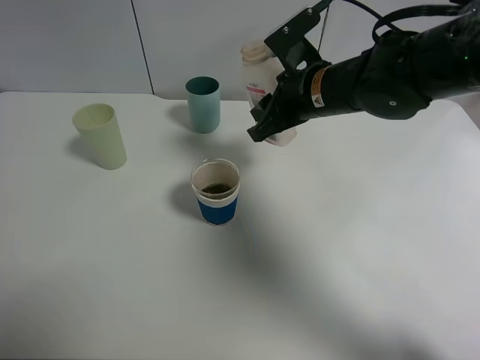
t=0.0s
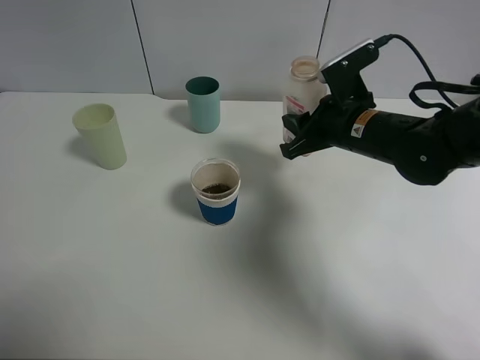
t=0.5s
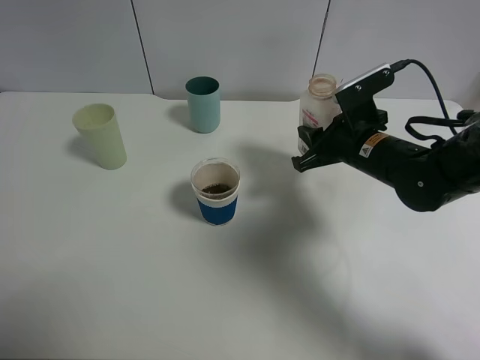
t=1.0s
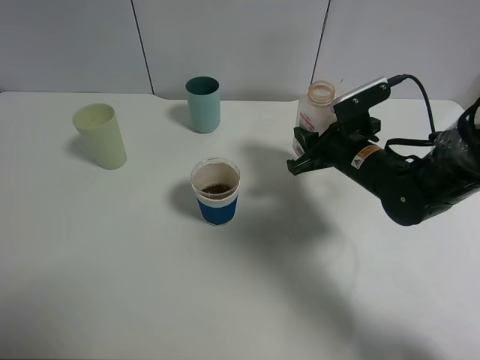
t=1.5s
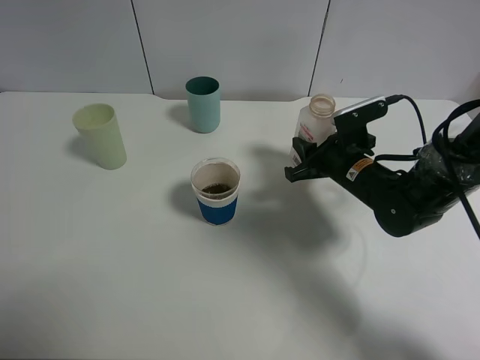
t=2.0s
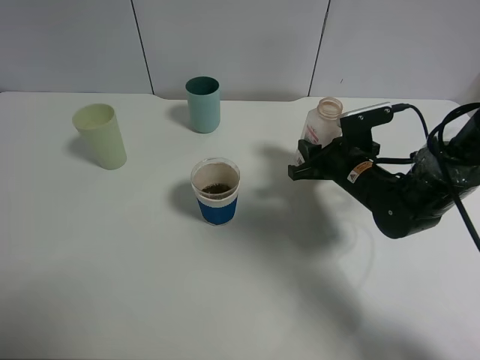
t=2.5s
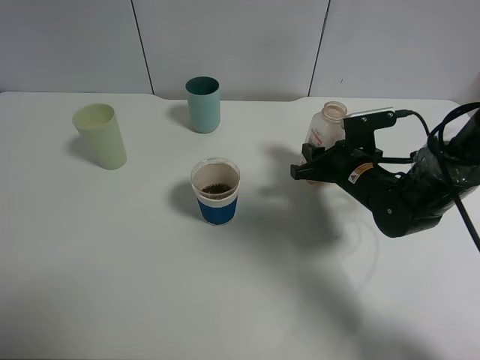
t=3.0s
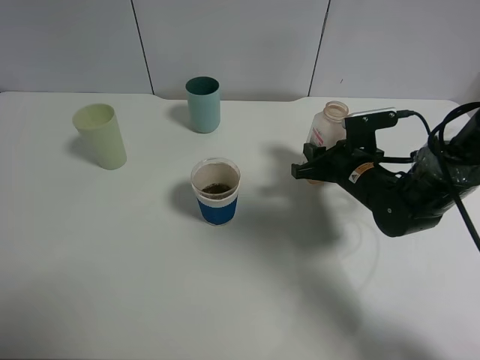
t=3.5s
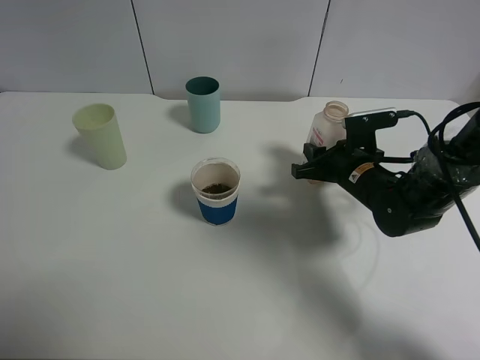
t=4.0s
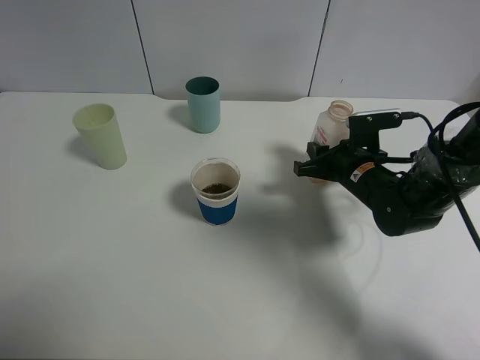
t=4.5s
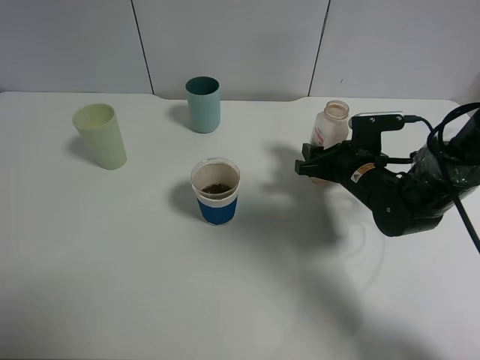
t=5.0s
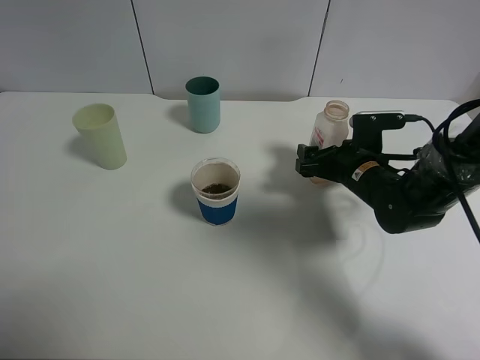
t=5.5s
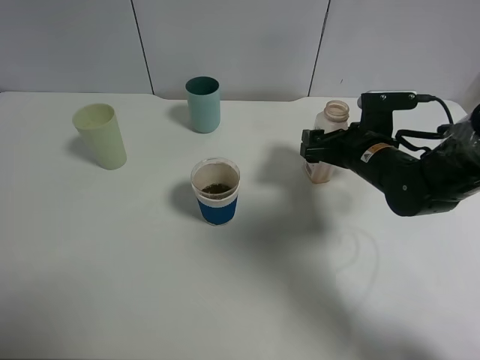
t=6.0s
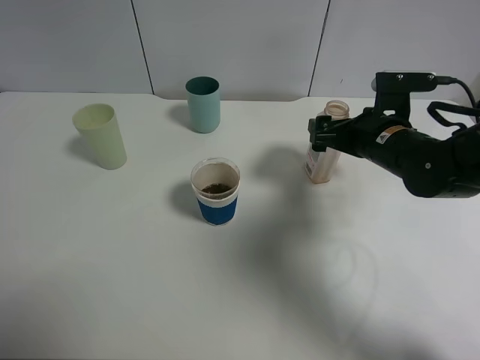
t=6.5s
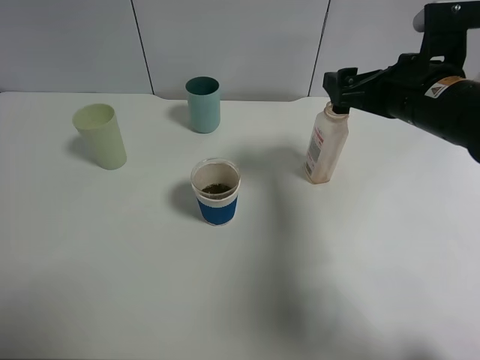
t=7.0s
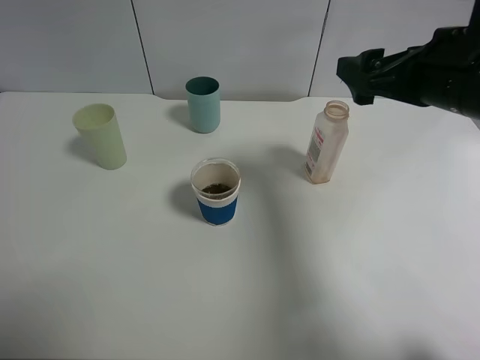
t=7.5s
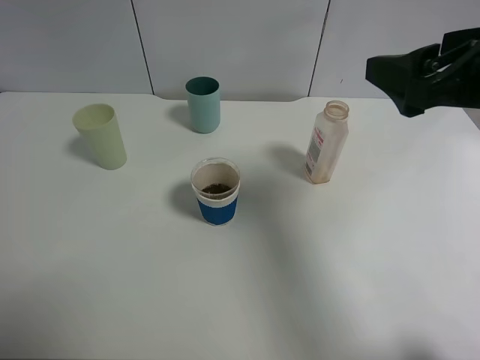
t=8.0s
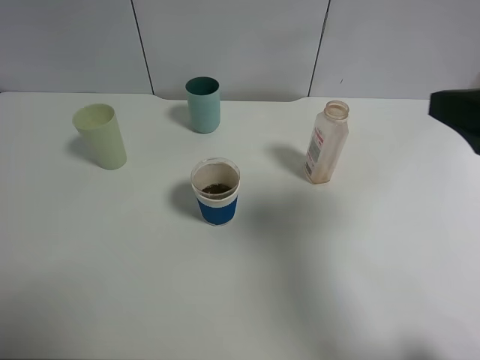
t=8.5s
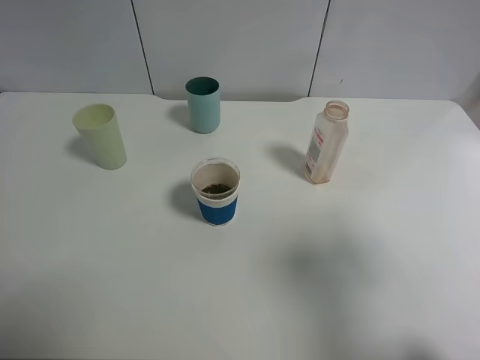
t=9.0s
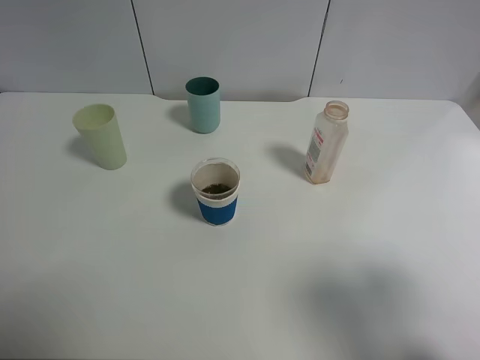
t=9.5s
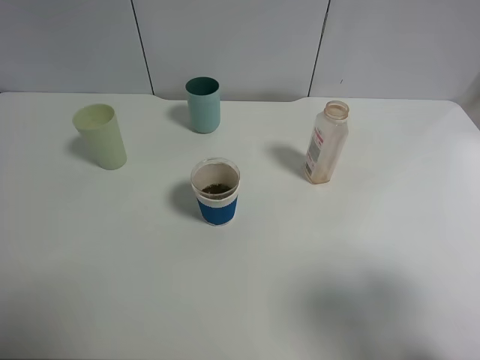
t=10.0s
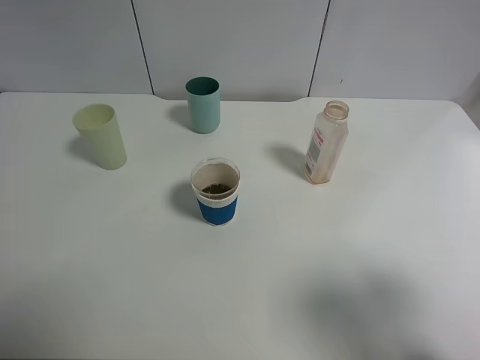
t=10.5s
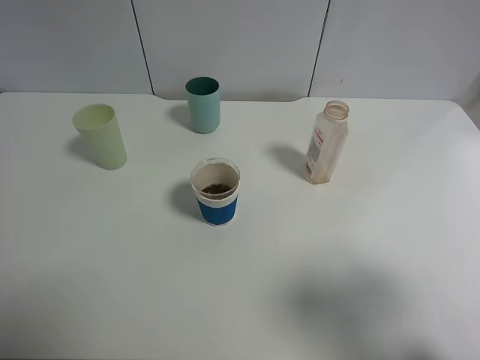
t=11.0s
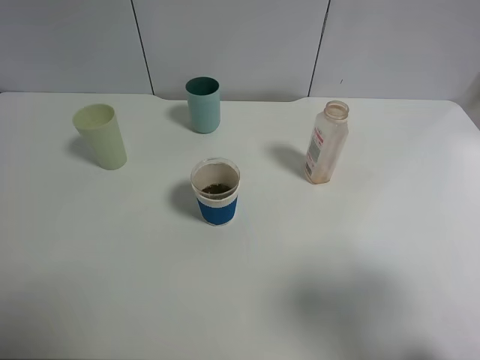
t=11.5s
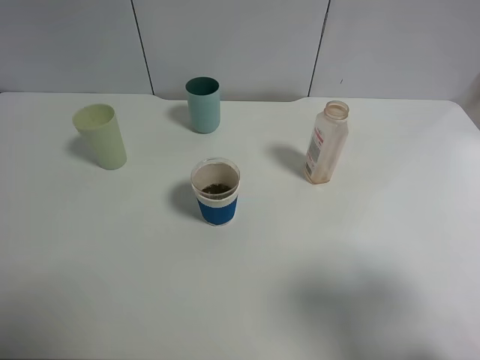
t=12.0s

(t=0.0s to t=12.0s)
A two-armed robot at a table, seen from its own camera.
Task of the whole recording: use a clamp to hold the bottle of the drink, pour the beverage into a random cup, then clamp the cup containing the drink and pour the drink into another random cup.
Step, t=0.0s - t=5.0s: Place the drink bottle on the table with right gripper.
t=0.0s - t=2.0s: The right gripper is displaced downward and to the right by some 15 cm.
t=2.0s - t=4.0s: There are only small adjustments of the grippers.
t=4.0s - t=6.0s: The right gripper opens its fingers.
t=6.0s - t=8.0s: The right gripper goes some 25 cm upward and backward.
t=8.0s - t=10.0s: The right gripper is displaced backward and to the right by approximately 20 cm.

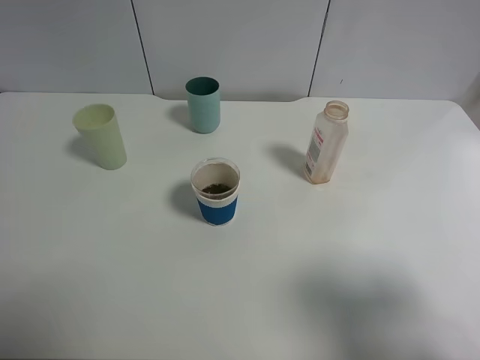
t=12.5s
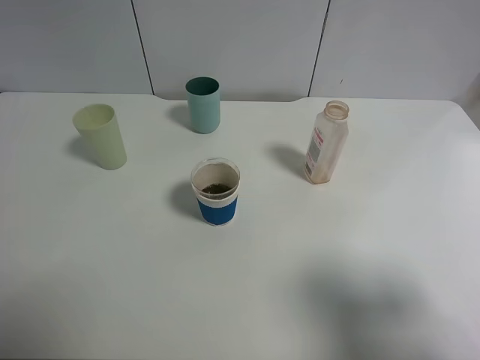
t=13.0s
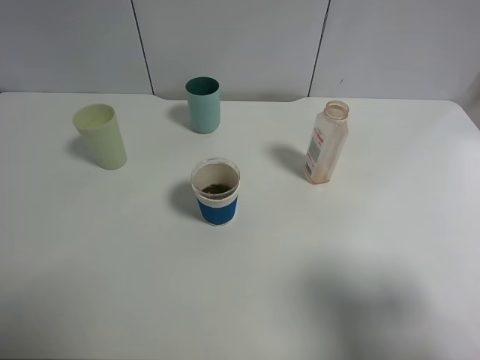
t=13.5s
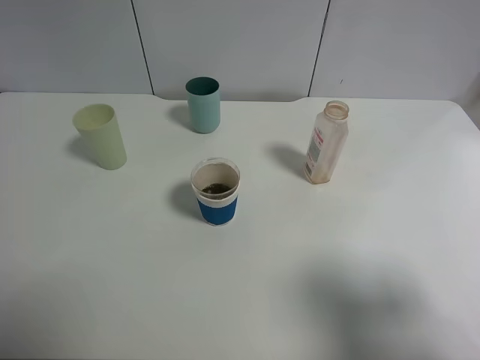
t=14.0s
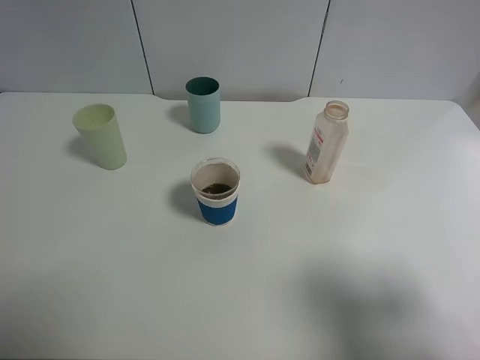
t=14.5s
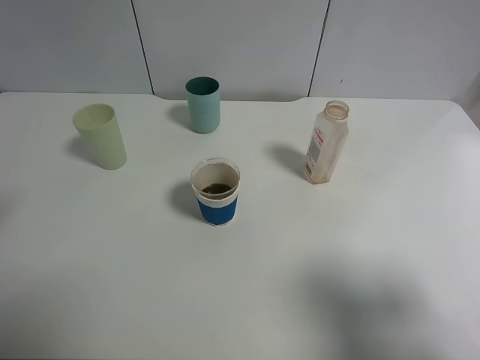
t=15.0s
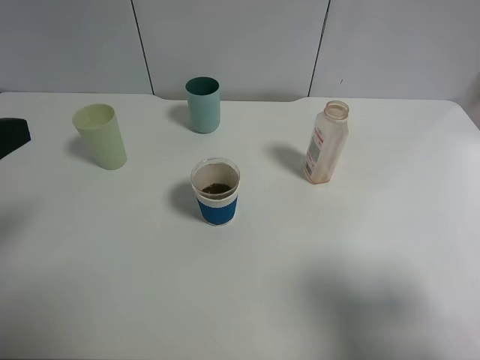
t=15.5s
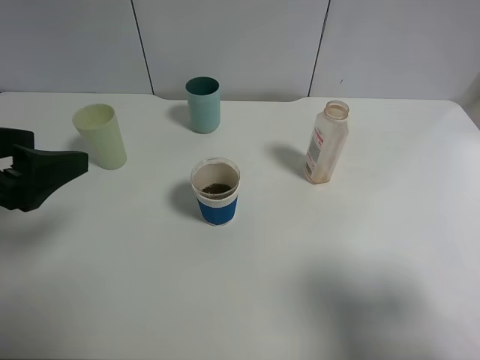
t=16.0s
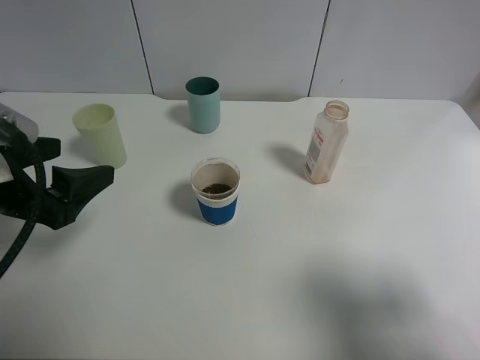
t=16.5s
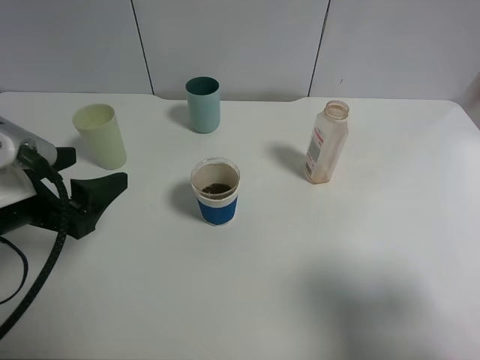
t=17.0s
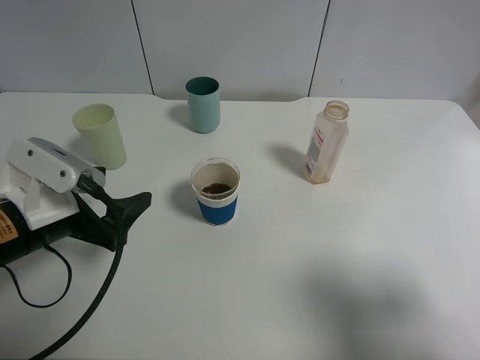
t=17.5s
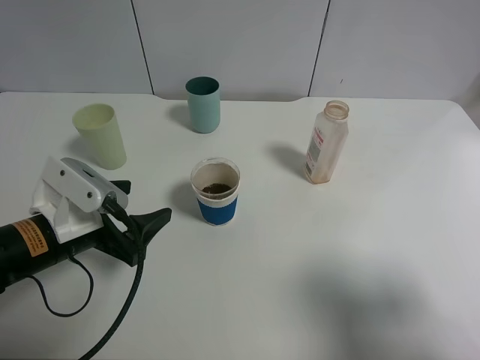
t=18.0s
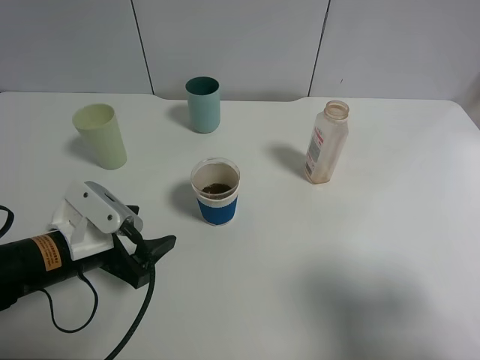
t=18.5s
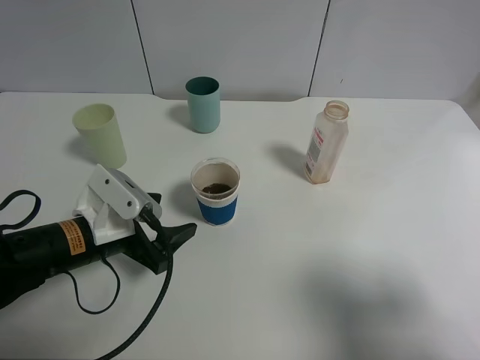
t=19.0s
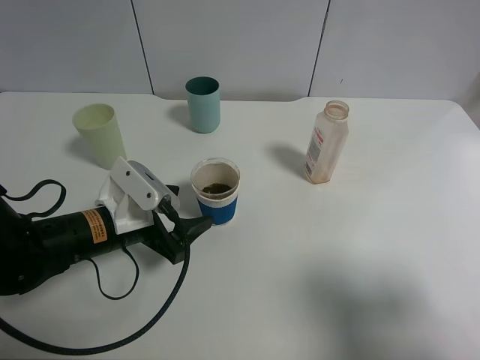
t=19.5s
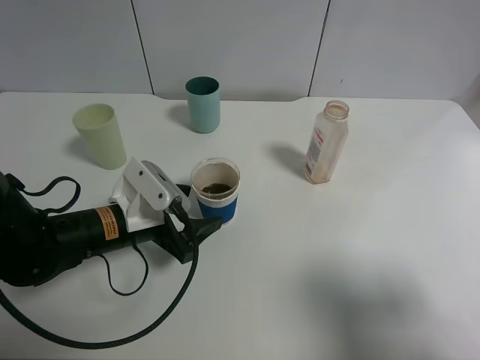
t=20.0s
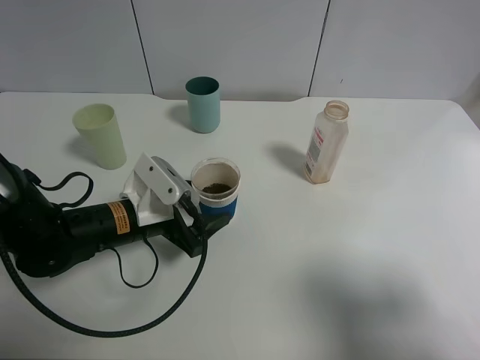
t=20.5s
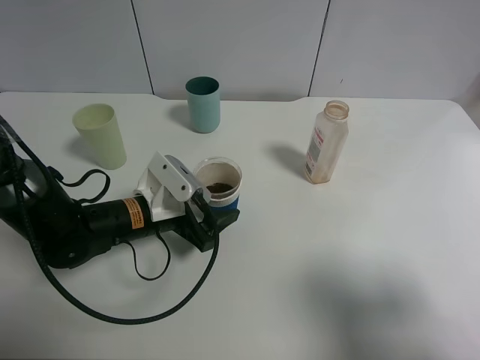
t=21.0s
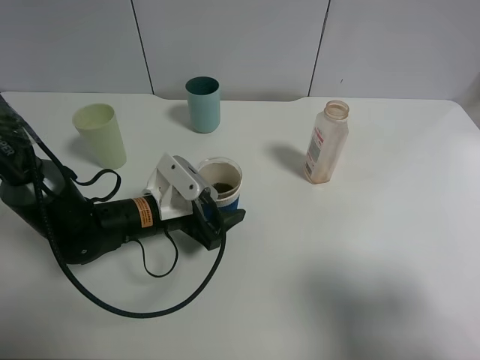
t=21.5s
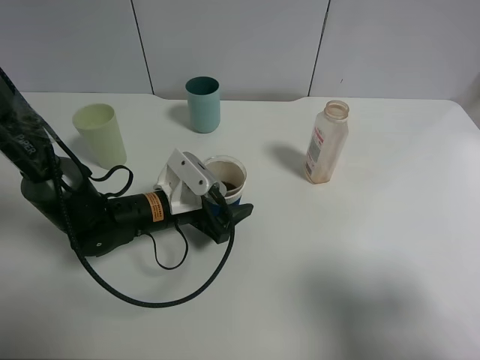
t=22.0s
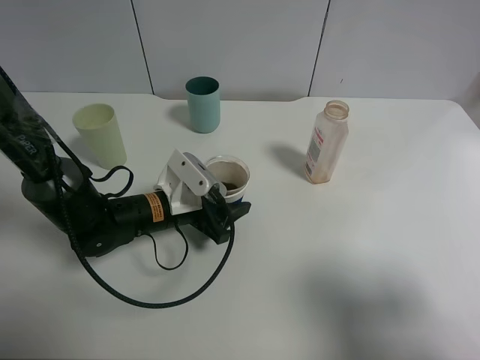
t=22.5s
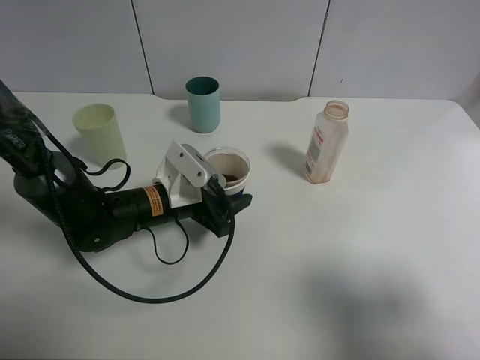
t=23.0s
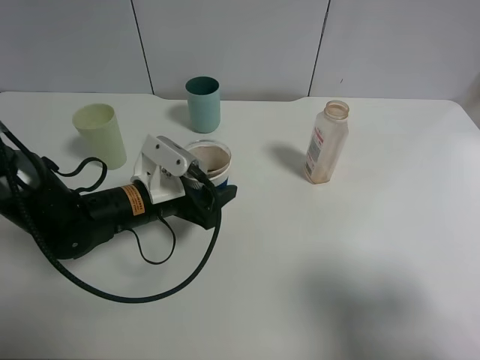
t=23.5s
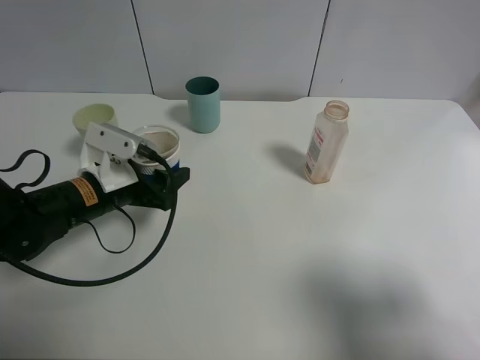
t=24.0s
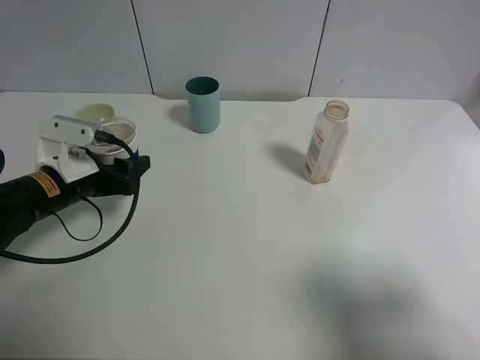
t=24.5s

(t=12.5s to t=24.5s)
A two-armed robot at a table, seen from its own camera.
Task of the whole recording: use a clamp to hold the bottle of the drink, pour the beverage into a random cup, then clamp the cup containing the drink and pour the drink into another random cup.
Step, t=12.5s - t=22.5s: Pick up the paper cup with left gripper.
t=14.5s - t=16.5s: The left gripper shifts roughly 15 cm downward, forward and to the right.
t=16.5s - t=18.5s: The left gripper goes some 15 cm downward.
t=18.5s - t=20.5s: The left gripper goes about 10 cm to the right and forward.
t=20.5s - t=22.5s: The left gripper ends up some 5 cm from where it was, and closes up.
t=22.5s - t=24.5s: The left gripper goes about 15 cm to the left and upward.

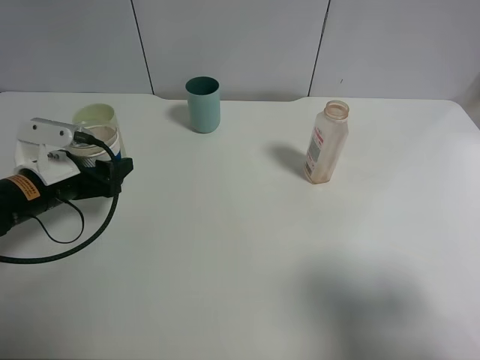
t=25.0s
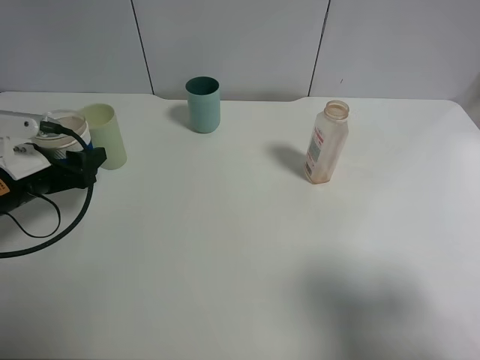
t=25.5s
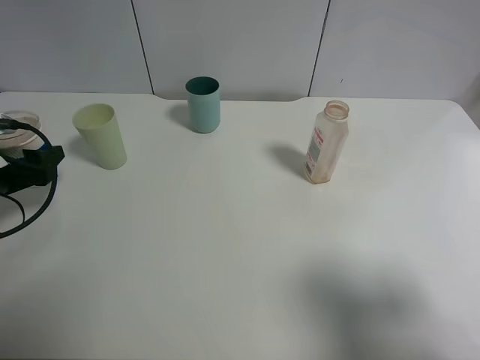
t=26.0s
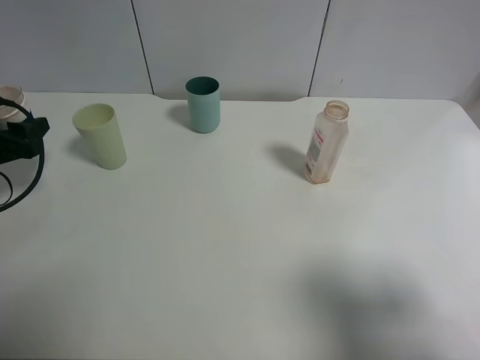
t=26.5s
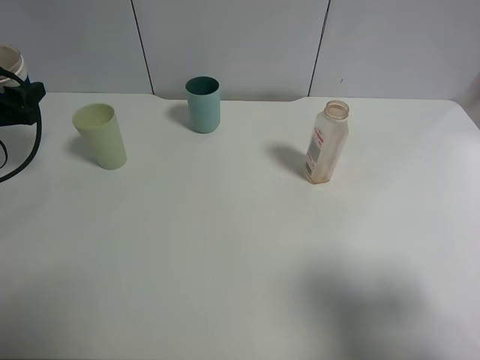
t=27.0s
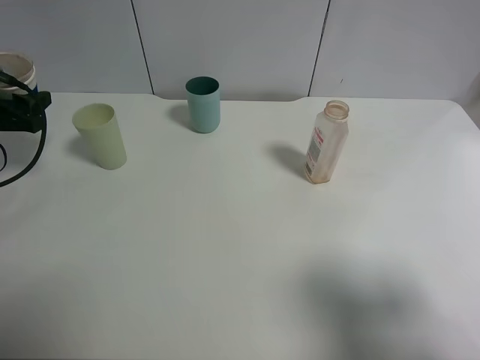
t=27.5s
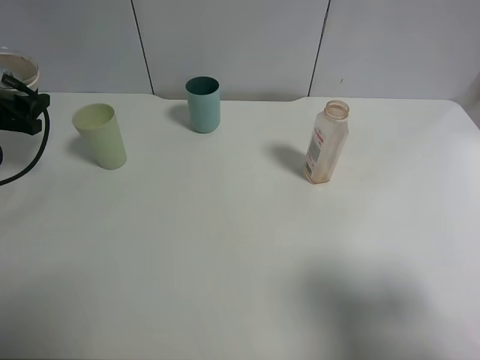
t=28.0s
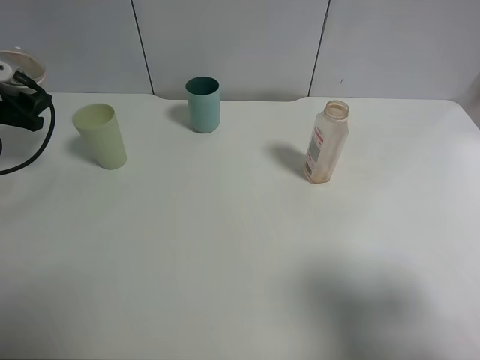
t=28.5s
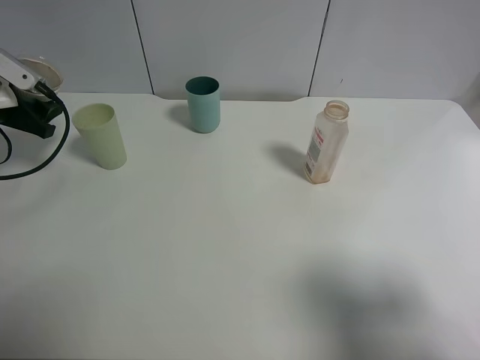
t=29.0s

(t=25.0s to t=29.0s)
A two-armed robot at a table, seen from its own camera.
Task of the whole recording: use a clamp to hold the bottle of the drink, pour the beverage into a random cup, then clamp the cup containing the drink and pour the drink into another random cup.
t=25.0s - t=27.0s: The left gripper goes approximately 15 cm to the left, forward and upward.
